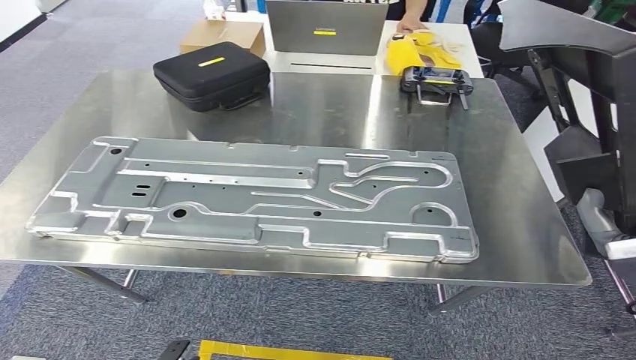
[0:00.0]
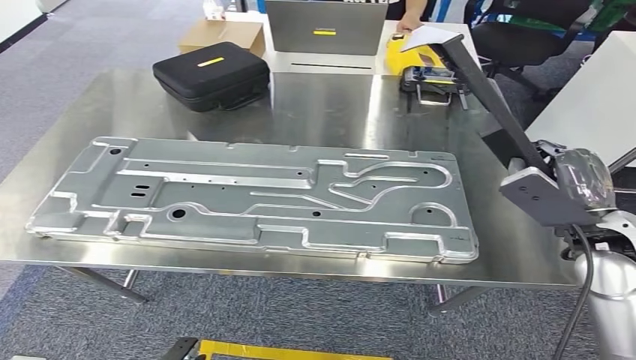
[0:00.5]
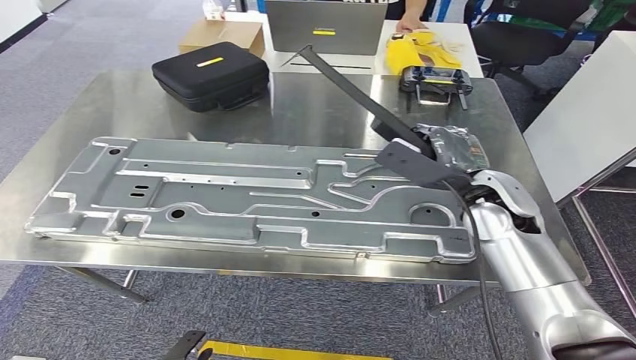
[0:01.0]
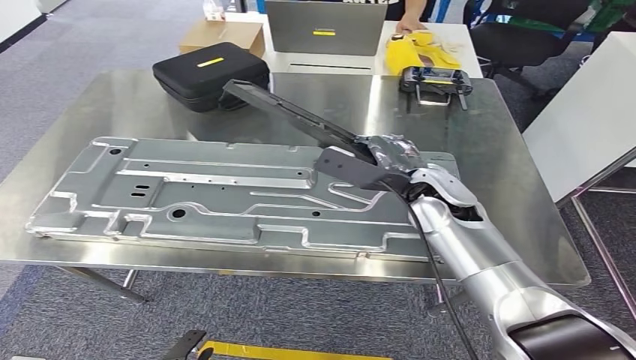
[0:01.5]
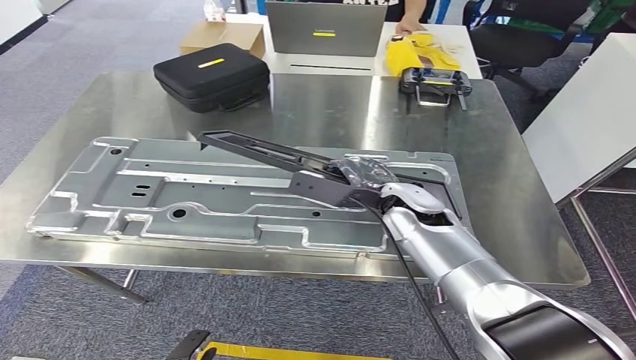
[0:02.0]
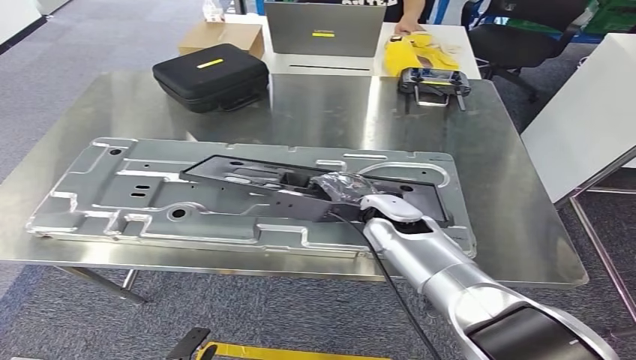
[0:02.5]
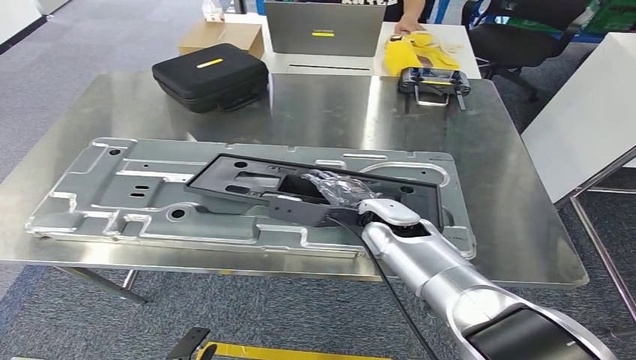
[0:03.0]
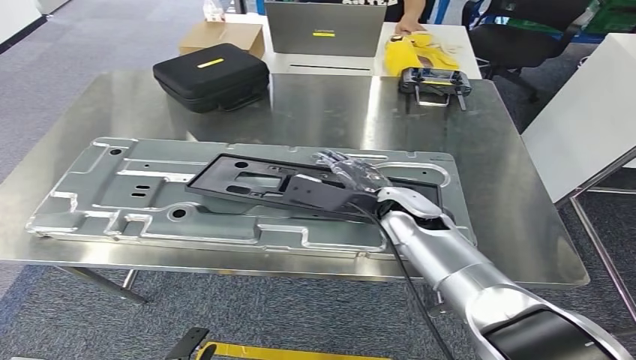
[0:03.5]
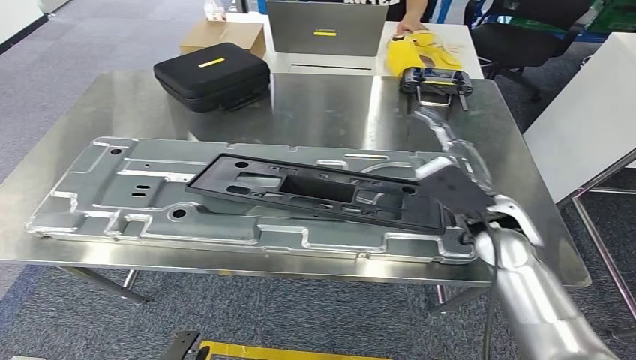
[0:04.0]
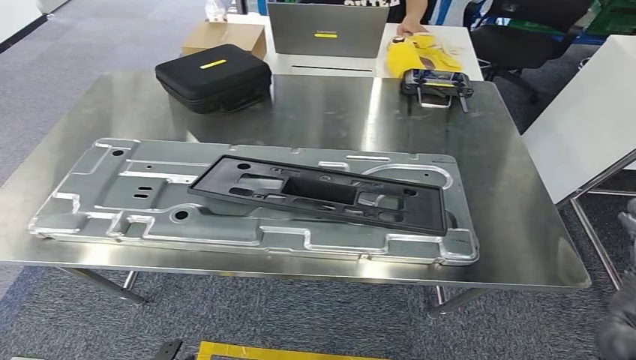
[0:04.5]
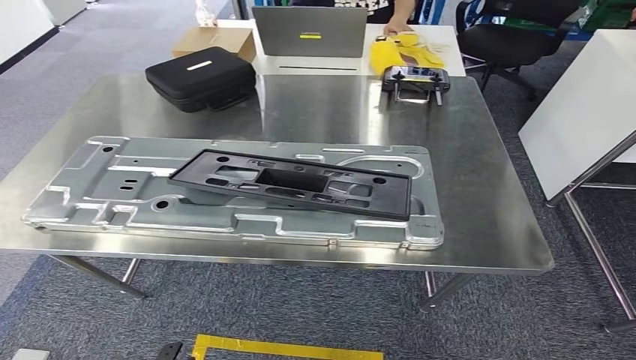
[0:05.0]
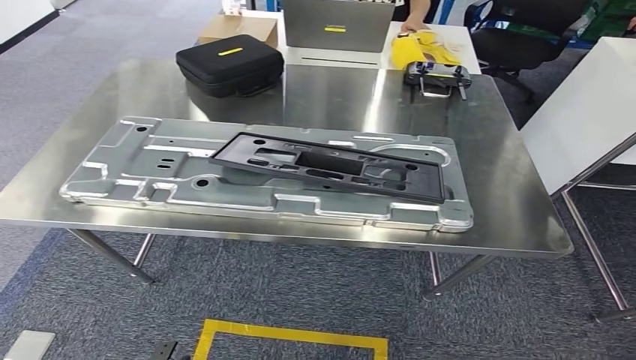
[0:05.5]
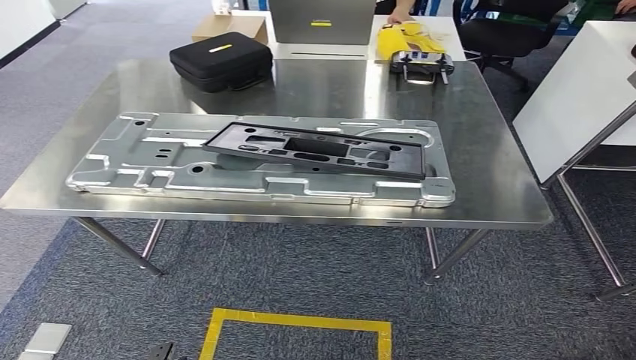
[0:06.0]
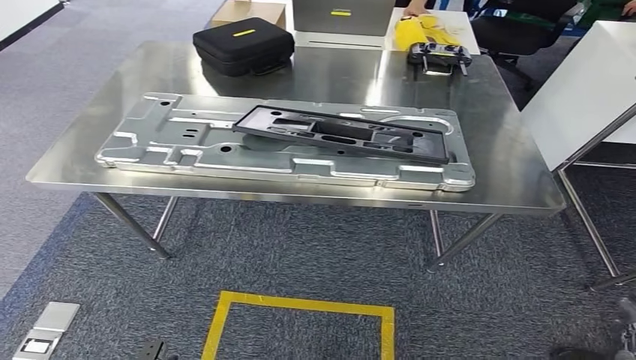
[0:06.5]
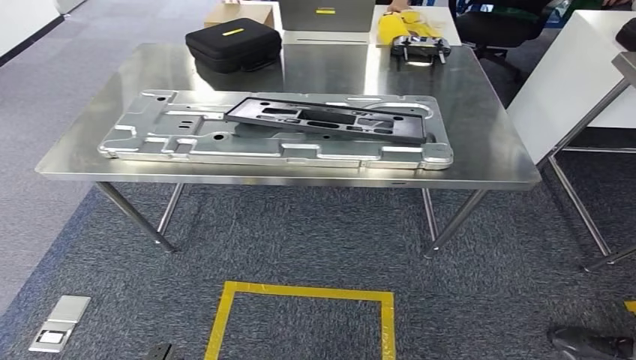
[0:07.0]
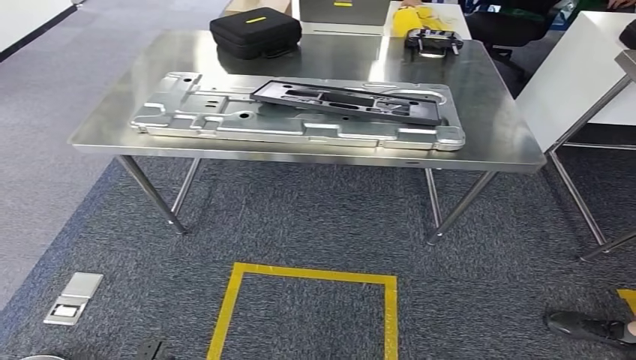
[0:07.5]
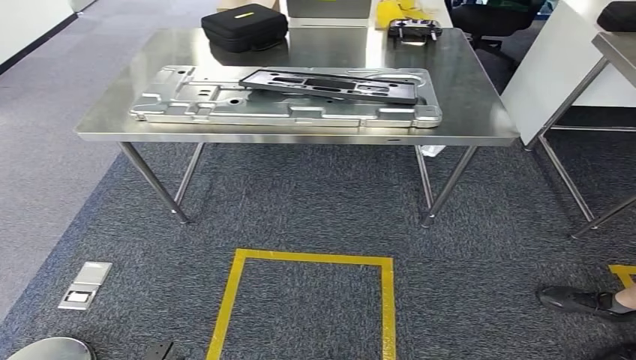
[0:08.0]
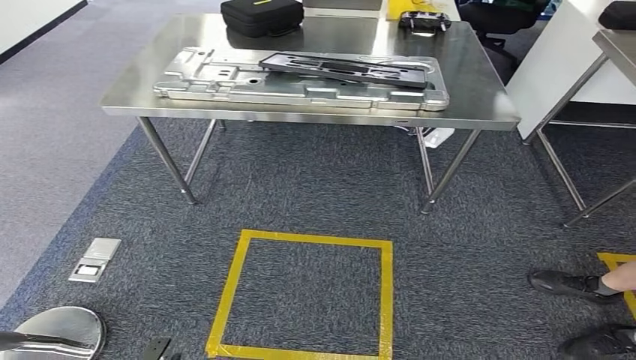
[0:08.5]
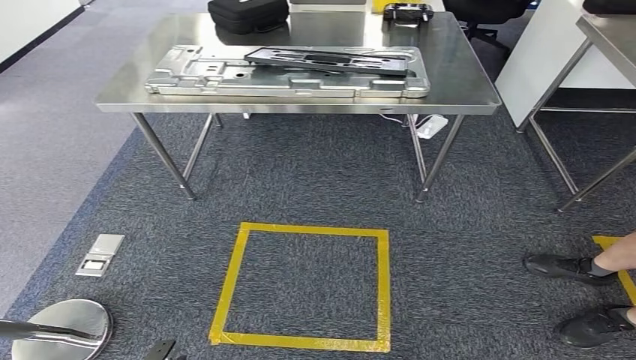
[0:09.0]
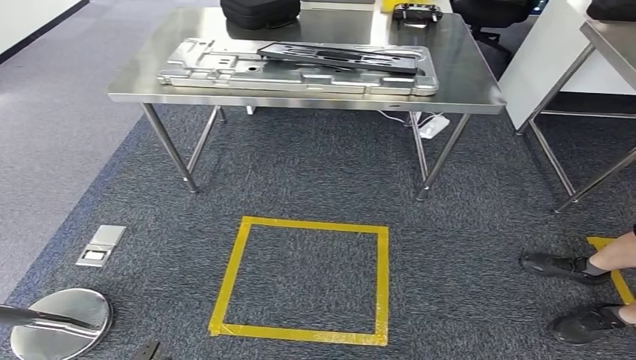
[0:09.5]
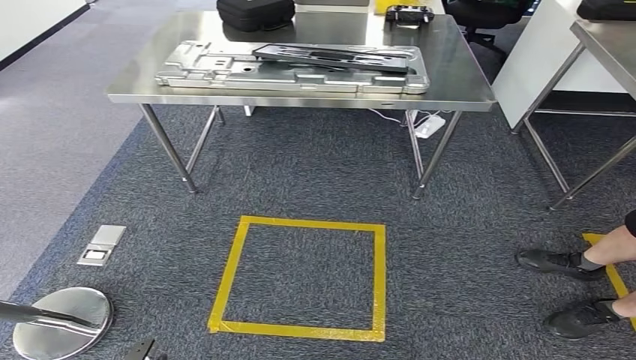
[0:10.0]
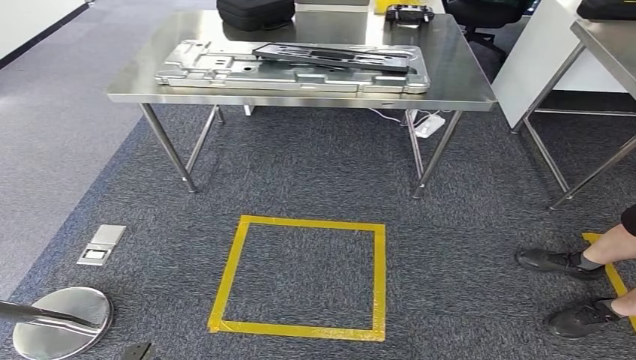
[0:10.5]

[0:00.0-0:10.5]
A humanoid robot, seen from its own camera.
Step, 0:01.0 to 0:05.0: Insert the large material into the corresponding slot on the workbench.
Step, 0:05.5 to 0:10.5: Return to the initial position at the shelf.
0:02.0 to 0:04.0: The right hand travels to the right by about 10 cm.
